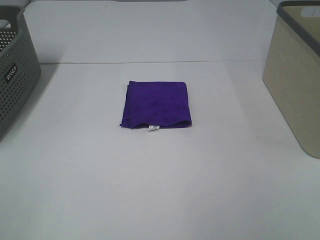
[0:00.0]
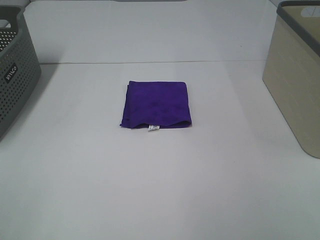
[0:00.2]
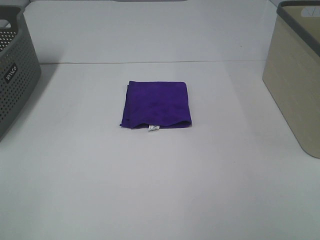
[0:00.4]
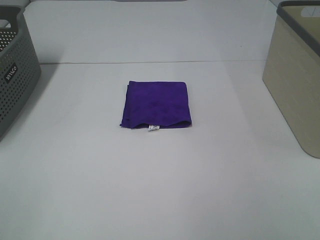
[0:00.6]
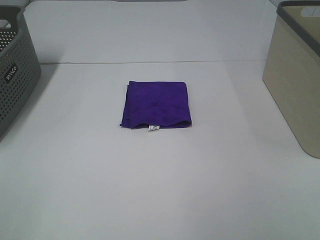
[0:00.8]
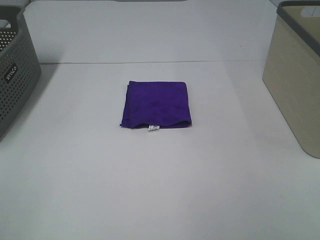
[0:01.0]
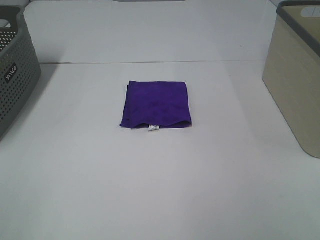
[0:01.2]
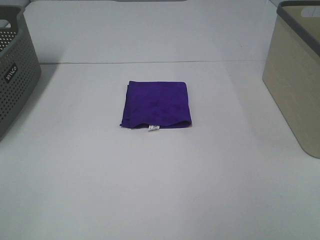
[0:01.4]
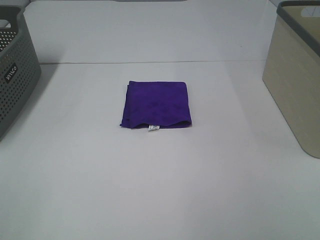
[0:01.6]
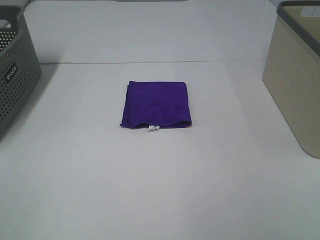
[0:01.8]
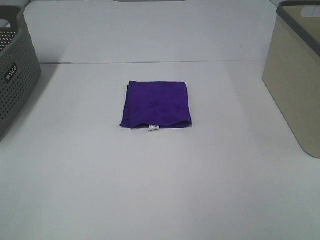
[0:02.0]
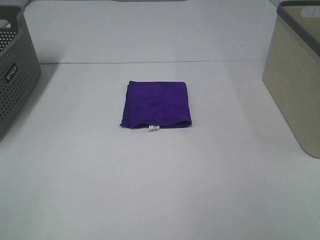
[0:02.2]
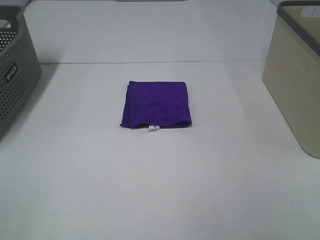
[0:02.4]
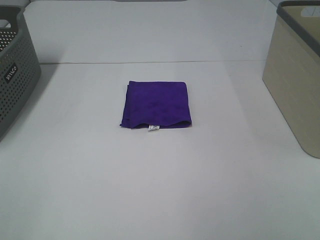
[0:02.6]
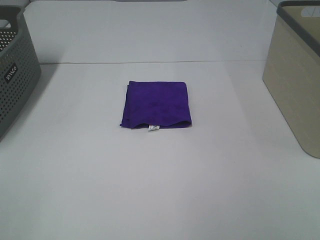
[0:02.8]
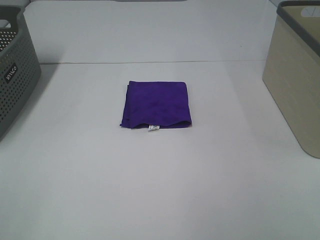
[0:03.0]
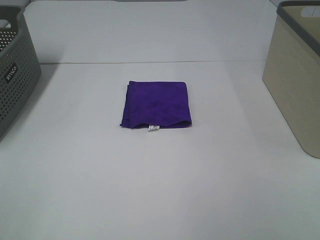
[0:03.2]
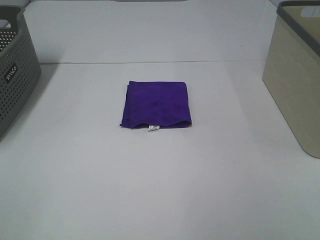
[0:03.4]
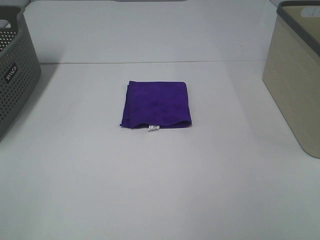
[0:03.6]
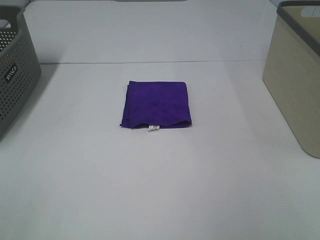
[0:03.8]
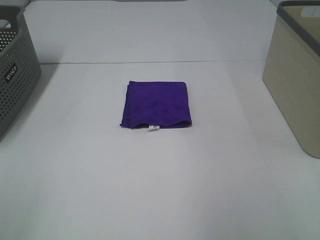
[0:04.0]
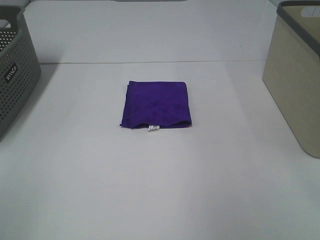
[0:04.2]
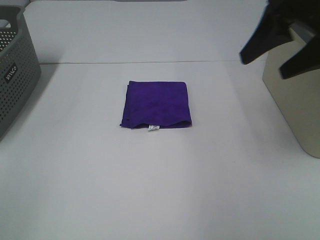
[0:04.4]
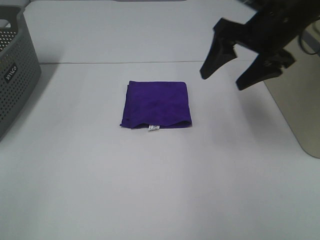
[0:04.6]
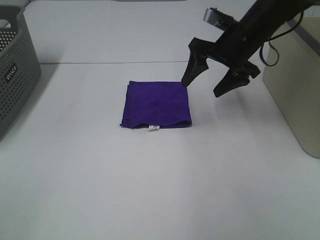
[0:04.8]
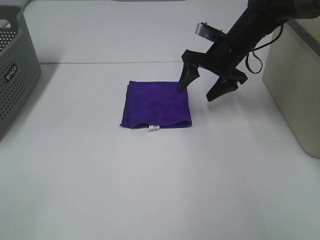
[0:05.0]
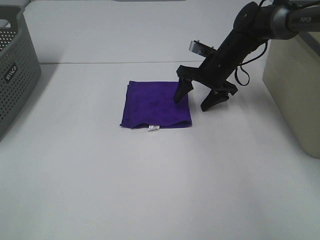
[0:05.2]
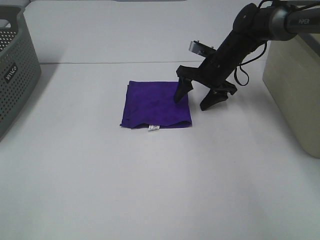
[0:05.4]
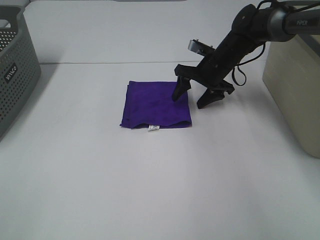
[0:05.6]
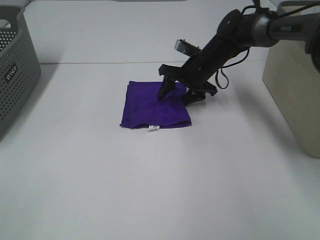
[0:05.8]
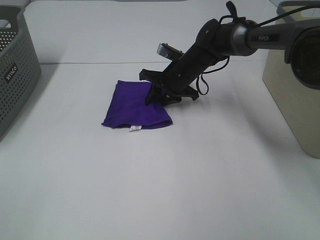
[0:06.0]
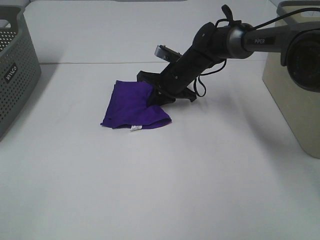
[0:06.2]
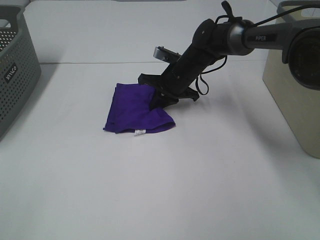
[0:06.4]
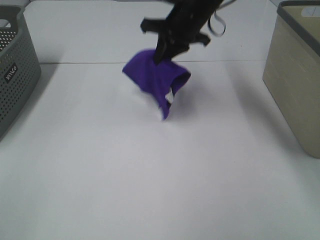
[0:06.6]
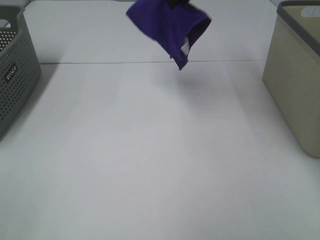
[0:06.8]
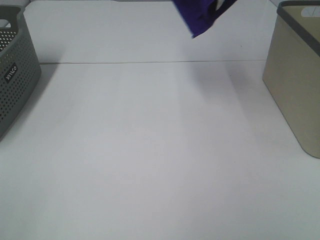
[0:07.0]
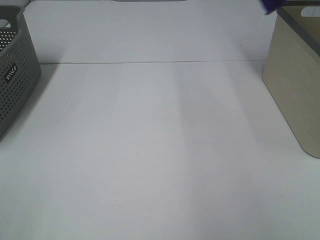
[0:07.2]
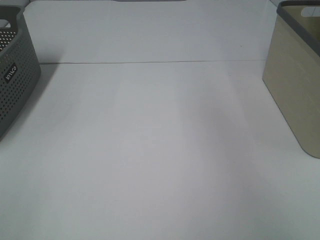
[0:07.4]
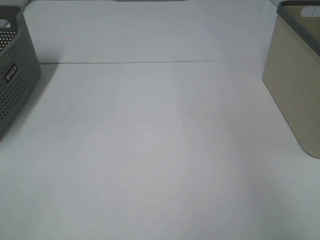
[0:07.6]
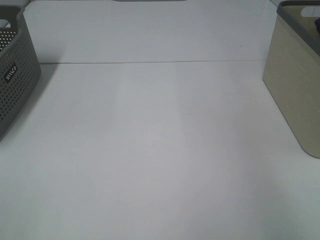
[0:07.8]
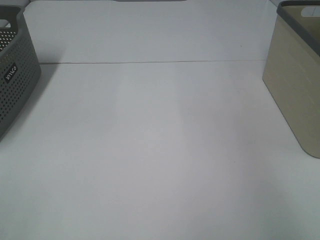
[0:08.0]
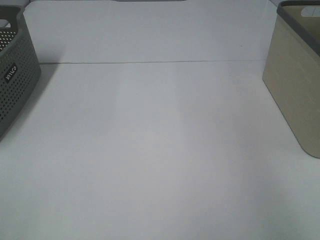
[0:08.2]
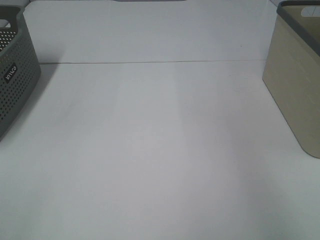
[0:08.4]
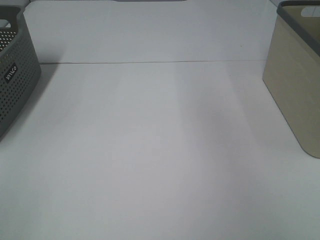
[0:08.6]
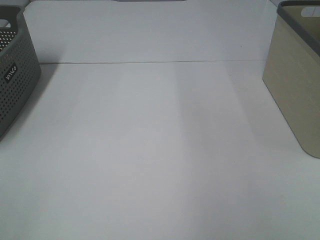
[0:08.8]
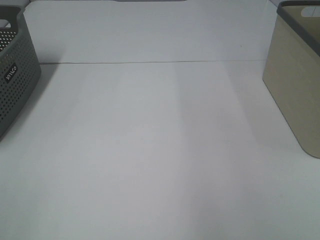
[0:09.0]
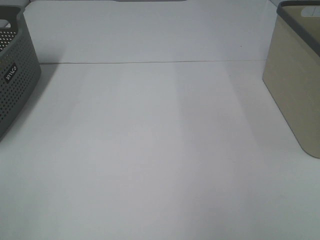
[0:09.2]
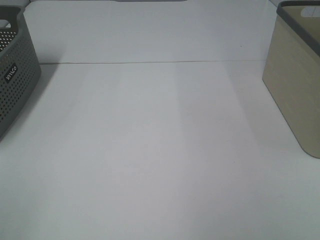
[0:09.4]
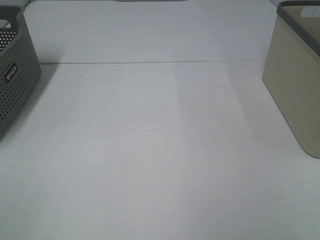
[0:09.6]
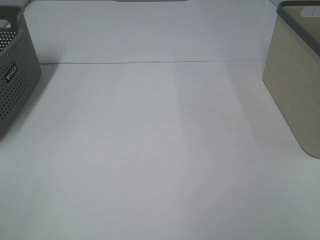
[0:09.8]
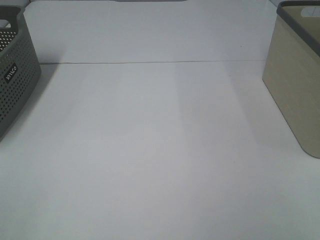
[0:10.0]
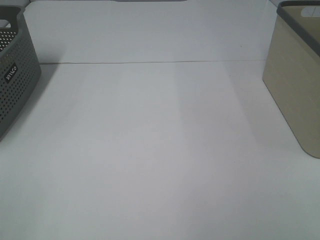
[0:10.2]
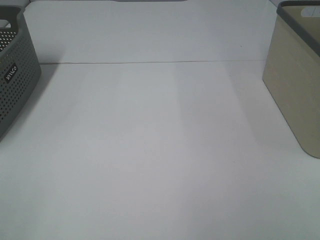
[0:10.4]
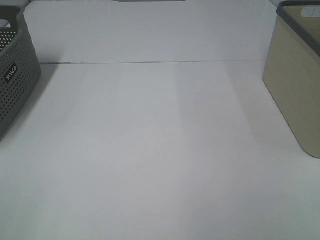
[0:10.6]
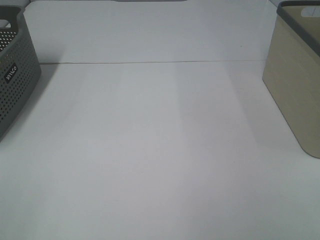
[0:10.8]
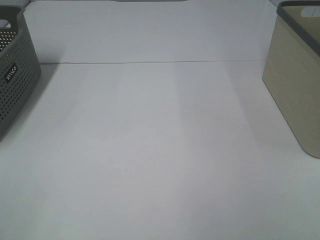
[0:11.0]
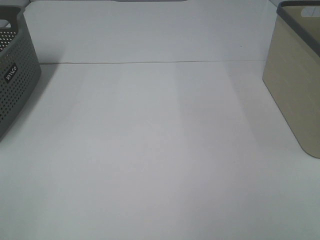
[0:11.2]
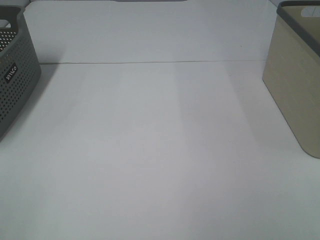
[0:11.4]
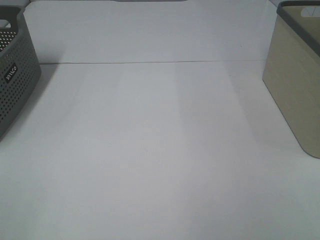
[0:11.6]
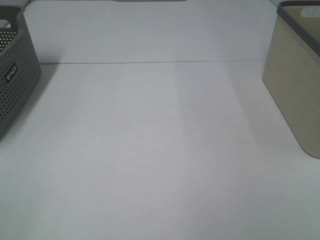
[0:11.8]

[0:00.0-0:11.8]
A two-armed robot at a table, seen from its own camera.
Step, 0:00.0 to 0:06.2: Right hand: grab the folded purple towel.
Step, 0:06.4 to 0:08.2: Right hand: place the purple towel in right basket.
0:00.0 to 0:03.0: Both grippers stay about where they are.
0:03.0 to 0:04.4: The right gripper moves forward, about 30 cm.
0:04.4 to 0:06.0: The right gripper is displaced downward, forward and to the left by some 35 cm, and closes.
0:06.0 to 0:07.4: The right gripper heads upward and to the right, covering approximately 50 cm.
0:10.4 to 0:11.8: Both grippers stay put.

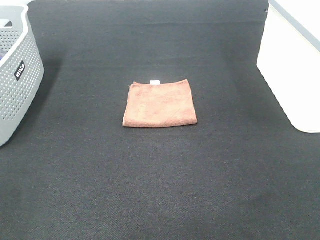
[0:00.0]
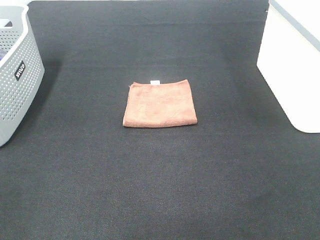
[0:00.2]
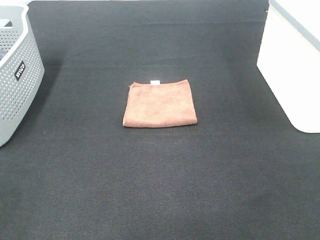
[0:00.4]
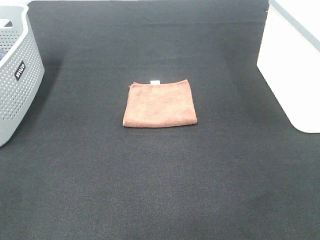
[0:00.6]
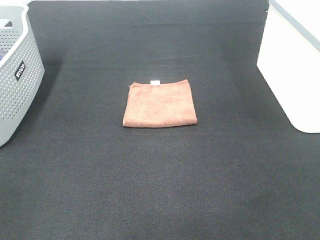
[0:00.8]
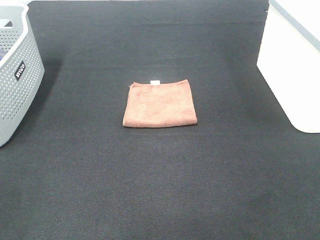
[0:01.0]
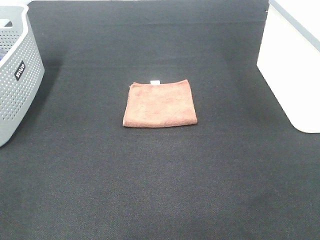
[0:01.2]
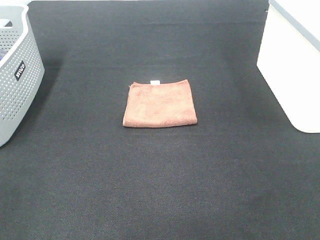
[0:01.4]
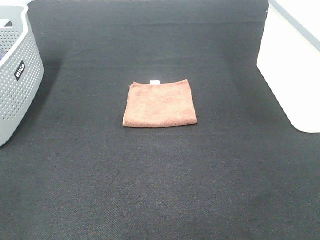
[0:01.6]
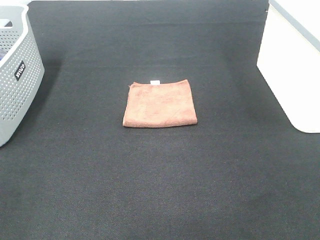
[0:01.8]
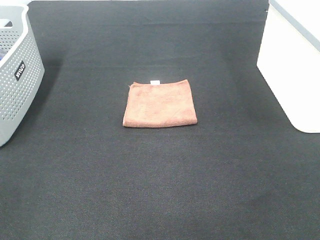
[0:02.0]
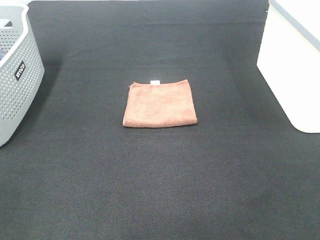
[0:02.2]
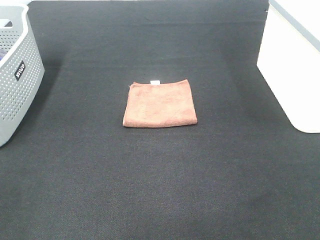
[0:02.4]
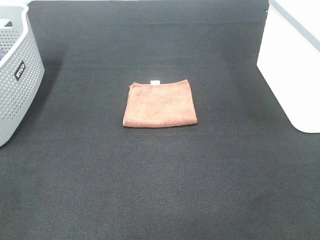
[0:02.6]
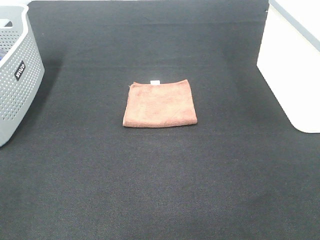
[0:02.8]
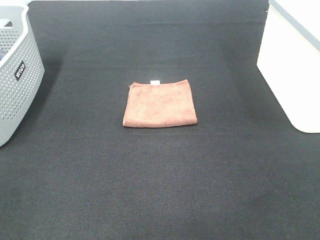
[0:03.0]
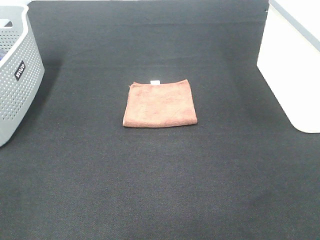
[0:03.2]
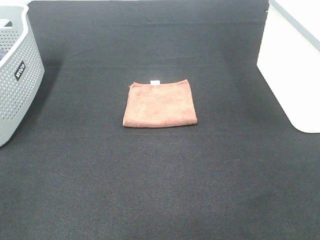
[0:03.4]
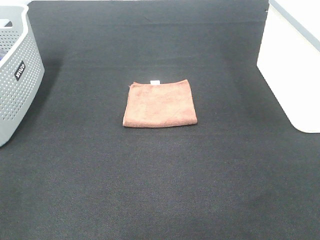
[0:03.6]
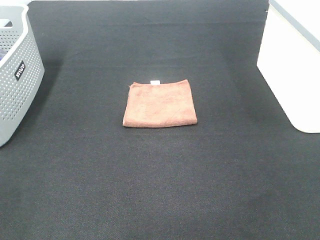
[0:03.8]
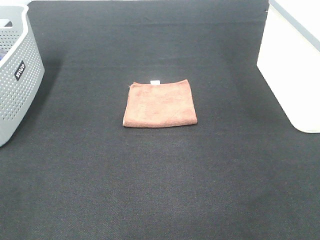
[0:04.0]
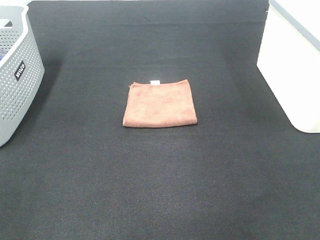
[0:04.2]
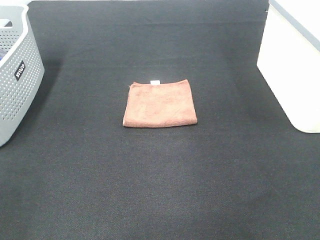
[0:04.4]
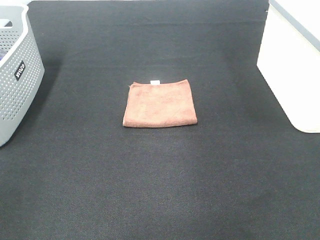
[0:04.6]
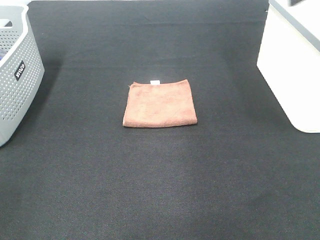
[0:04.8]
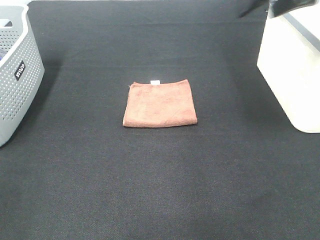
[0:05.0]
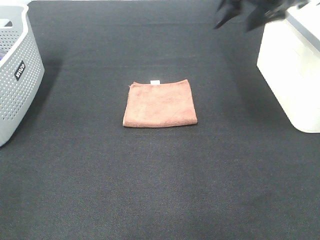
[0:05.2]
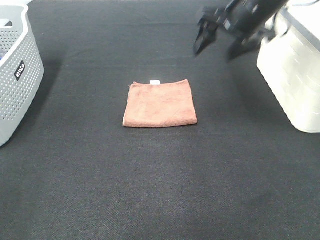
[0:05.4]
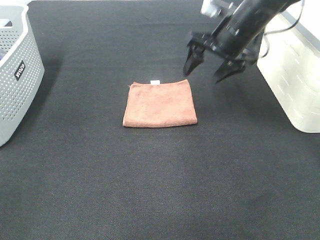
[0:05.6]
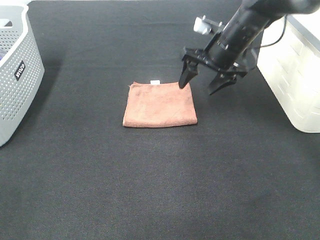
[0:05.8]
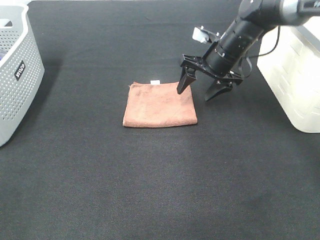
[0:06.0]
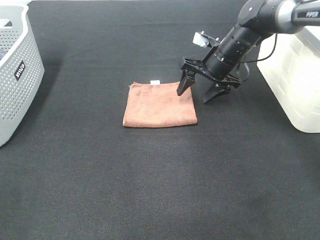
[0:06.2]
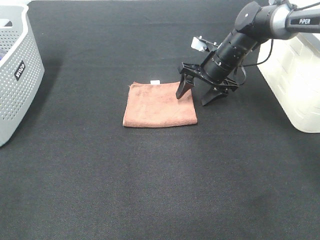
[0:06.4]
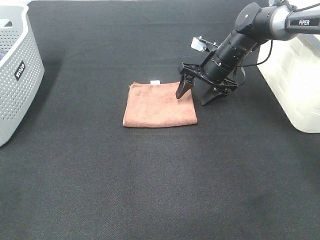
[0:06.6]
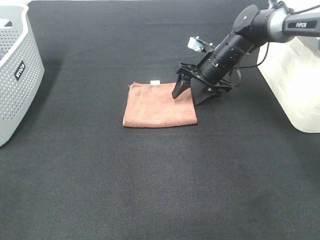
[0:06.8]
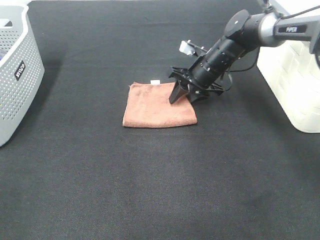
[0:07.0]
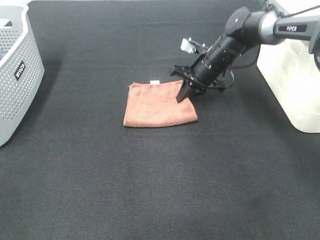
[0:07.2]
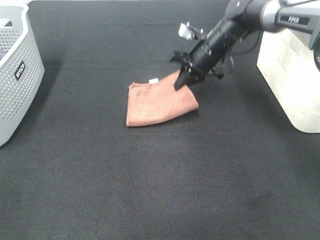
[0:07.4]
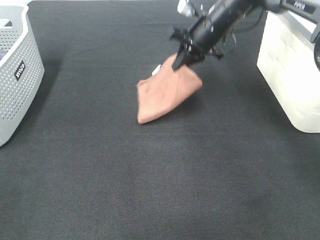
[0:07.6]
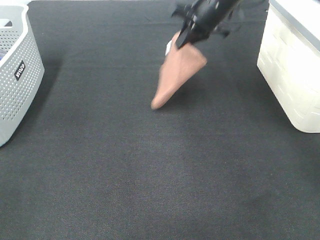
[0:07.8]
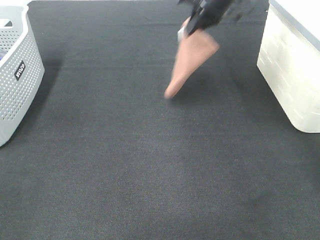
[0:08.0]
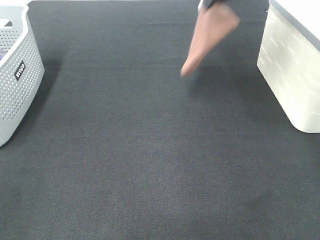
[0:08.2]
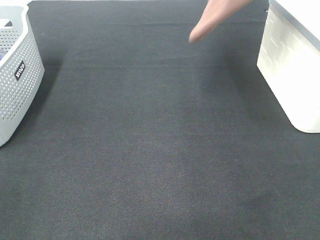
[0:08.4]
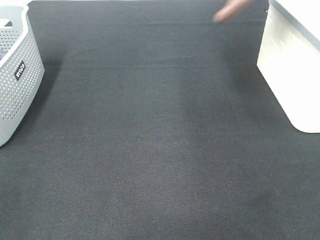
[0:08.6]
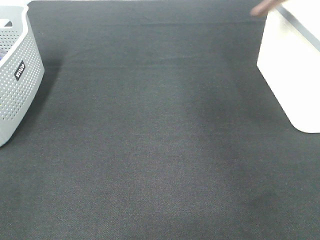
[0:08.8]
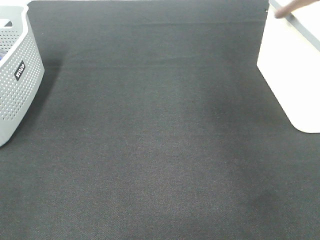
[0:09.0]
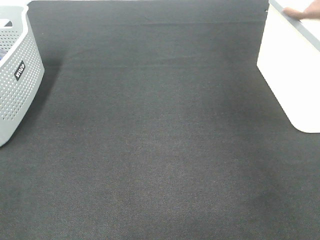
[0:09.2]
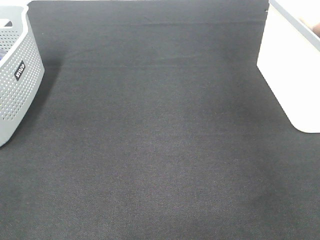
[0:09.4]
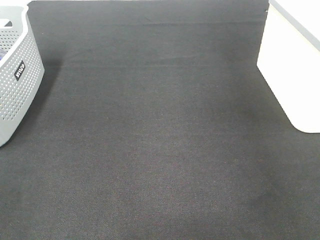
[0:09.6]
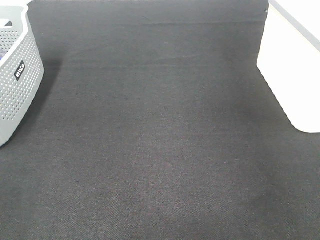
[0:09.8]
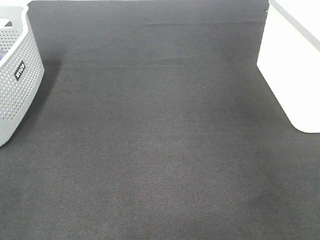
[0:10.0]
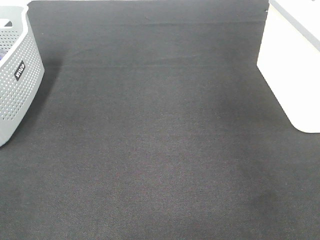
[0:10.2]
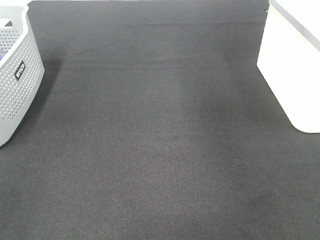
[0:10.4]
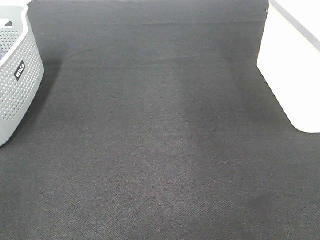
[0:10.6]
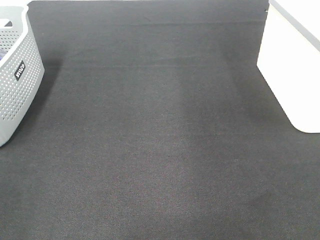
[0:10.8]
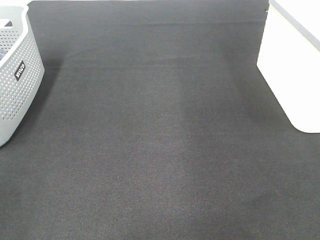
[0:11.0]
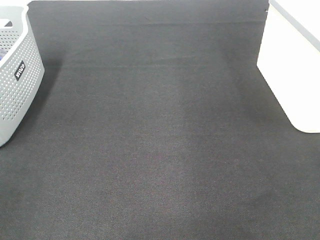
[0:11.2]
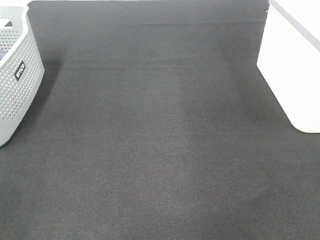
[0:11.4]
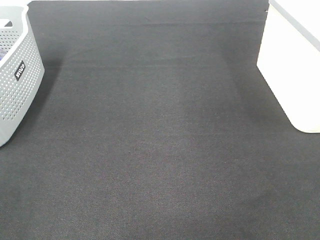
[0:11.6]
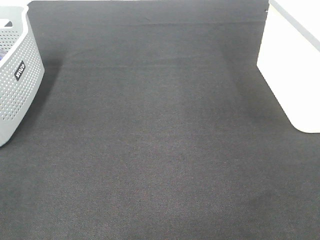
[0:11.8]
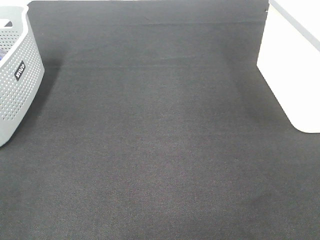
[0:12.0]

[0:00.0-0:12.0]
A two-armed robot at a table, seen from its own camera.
Step, 0:00.0 to 0:07.2: Right hand: grab the folded brown towel.
Step, 0:07.4 to 0:10.0: Right hand: place the brown towel in right basket.
0:00.0 to 0:03.0: Both grippers stay about where they are.
0:04.4 to 0:06.0: The right gripper is displaced forward, downward and to the left by some 40 cm.
0:06.0 to 0:07.6: The right gripper travels upward by approximately 5 cm, and closes.
0:07.6 to 0:09.0: The right gripper travels to the right and upward by approximately 35 cm.
